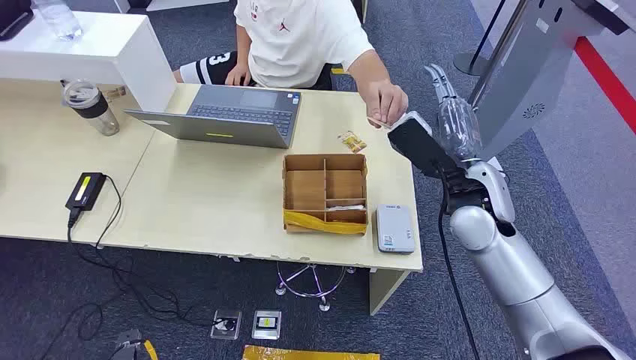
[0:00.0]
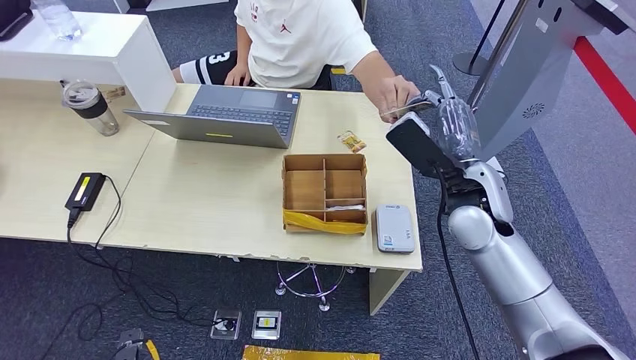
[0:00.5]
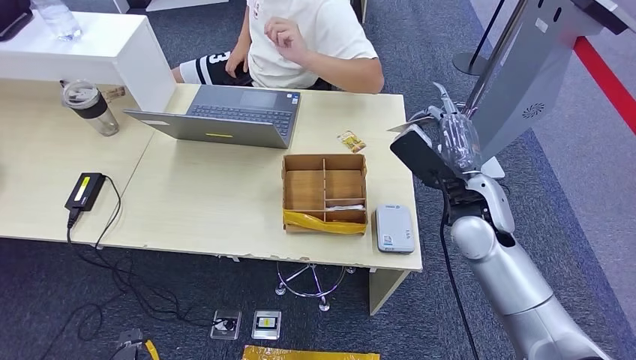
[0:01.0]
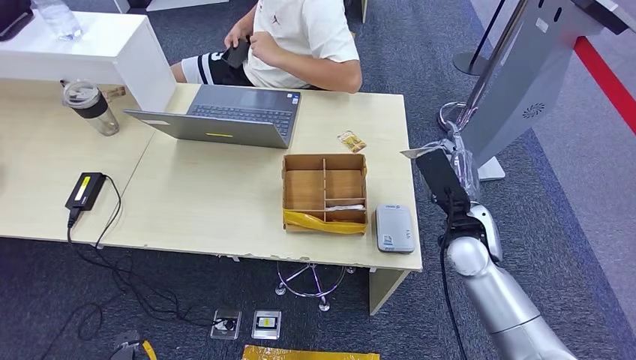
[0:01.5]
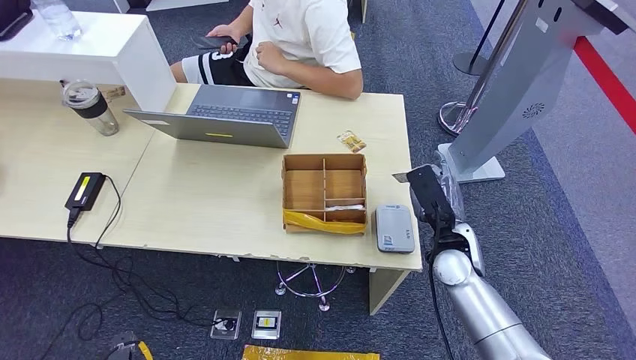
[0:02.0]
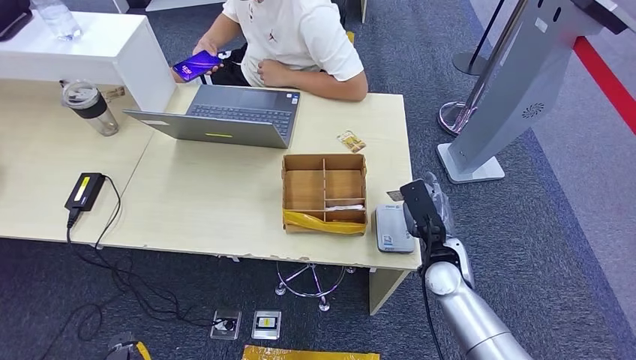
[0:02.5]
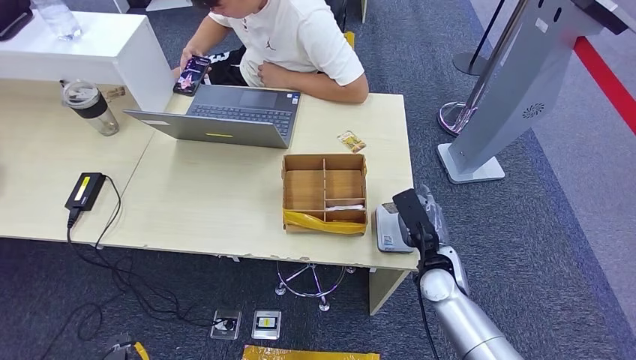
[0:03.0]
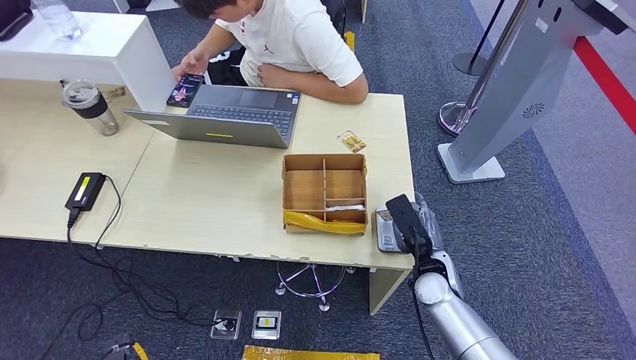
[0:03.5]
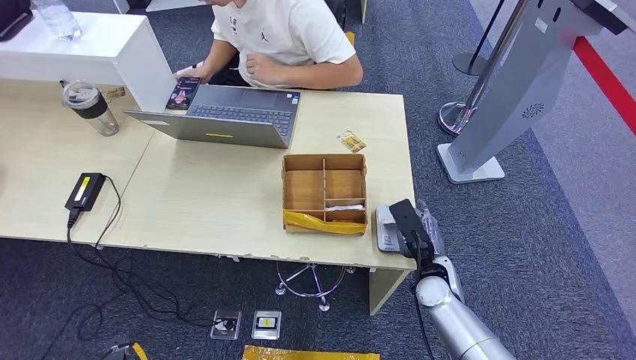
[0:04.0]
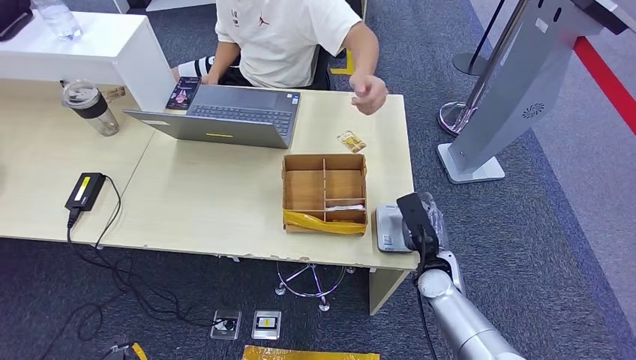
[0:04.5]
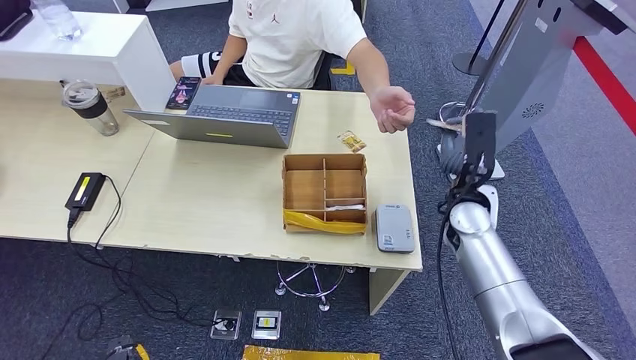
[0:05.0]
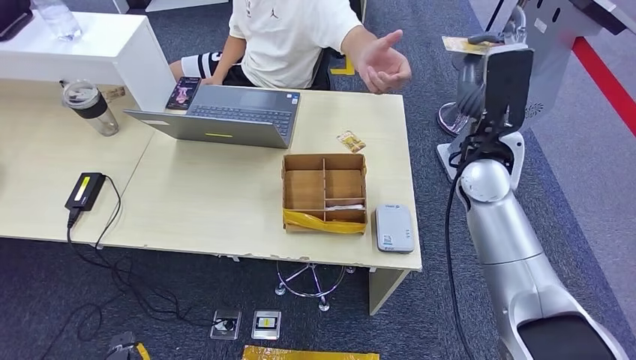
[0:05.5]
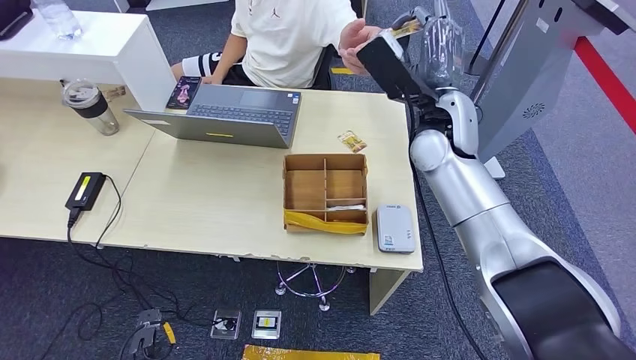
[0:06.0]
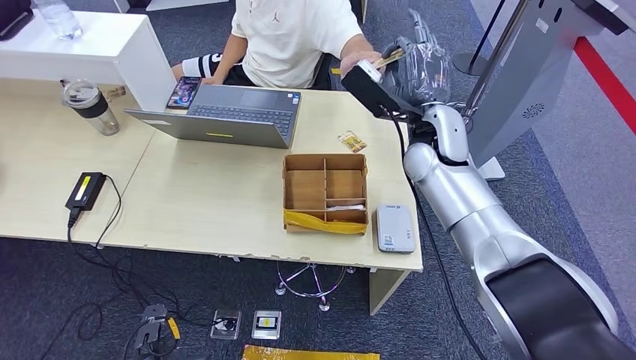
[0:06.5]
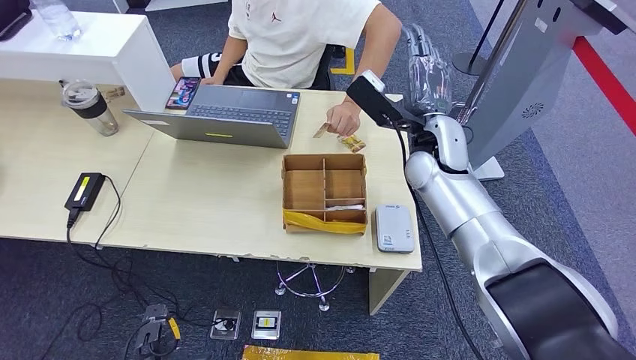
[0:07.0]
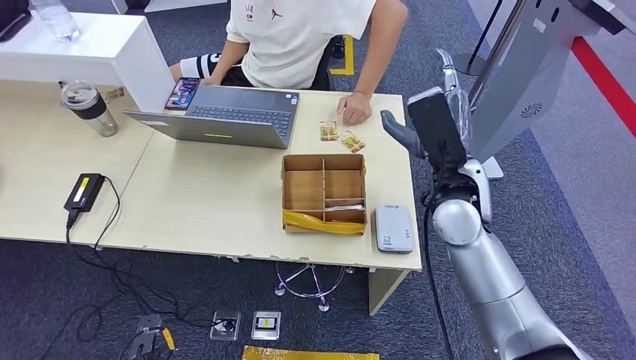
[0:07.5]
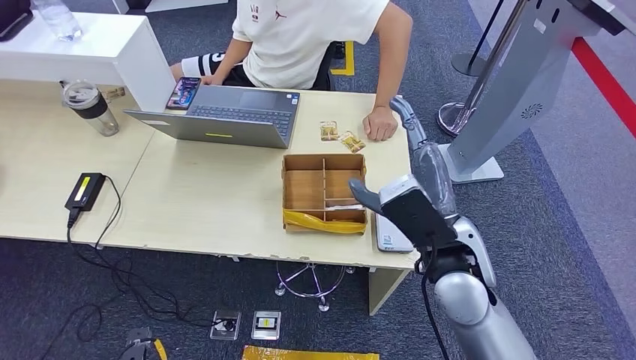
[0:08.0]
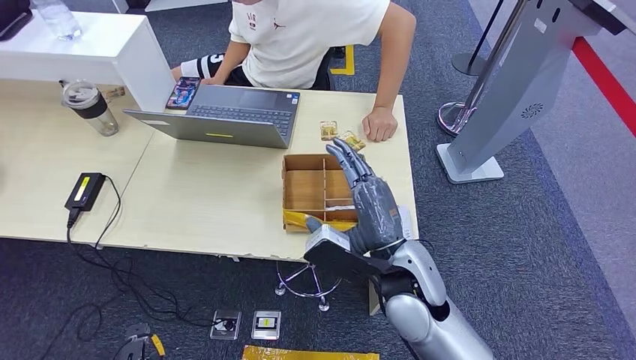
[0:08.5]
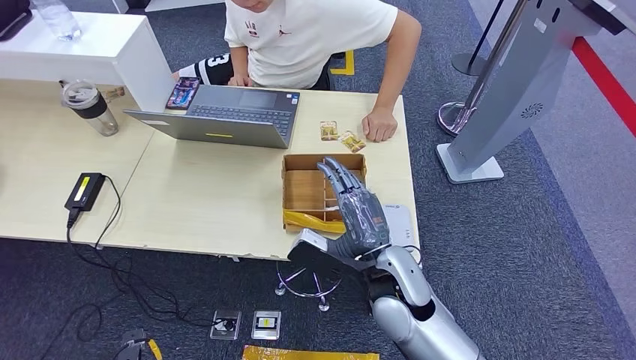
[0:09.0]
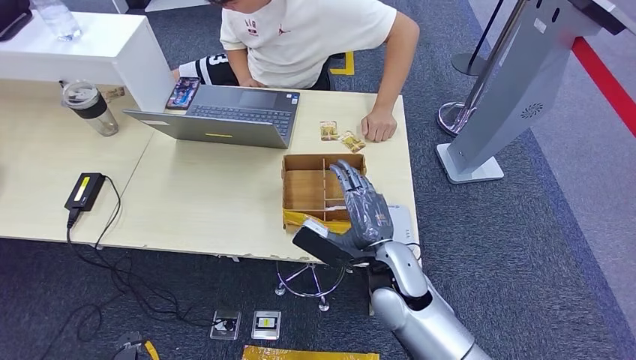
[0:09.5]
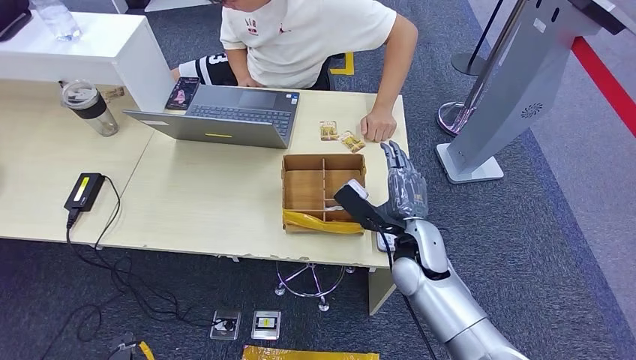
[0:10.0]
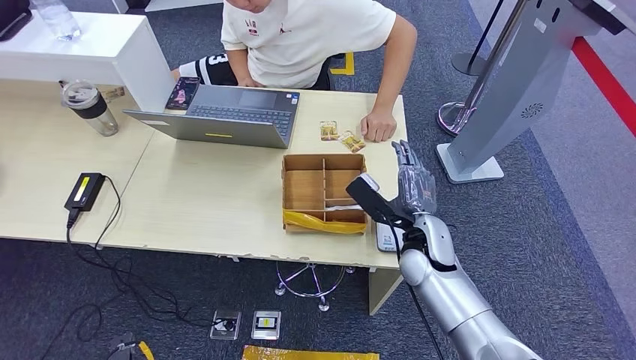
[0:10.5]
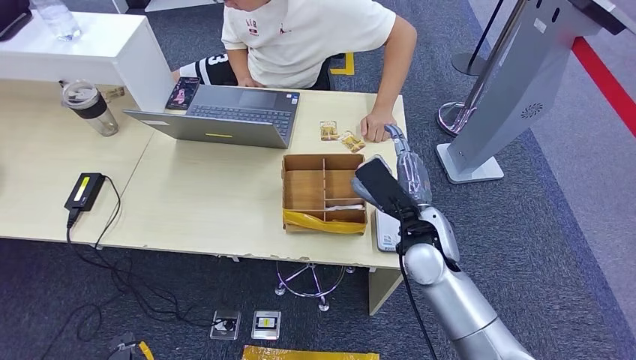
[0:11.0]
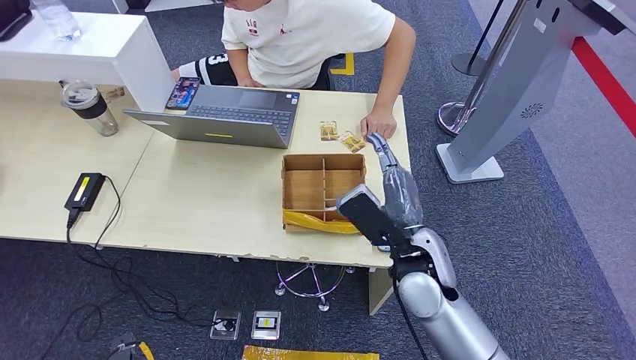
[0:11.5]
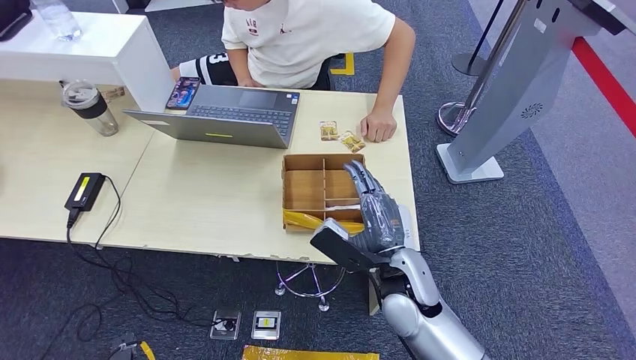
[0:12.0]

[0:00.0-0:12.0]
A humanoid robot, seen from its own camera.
Step, 0:00.0 to 0:01.5: Take the ID card from the person's hand.
Step, 0:02.0 to 0:05.0: Place the ID card on the card reader.
Step, 0:05.5 to 0:08.5: Hand the ID card to the person.
0:02.0 to 0:04.0: The right hand heads downward, covering roughly 10 cm.
0:08.0 to 0:10.0: The right hand travels downward by roughly 10 cm.
0:10.0 to 0:12.0: The right hand changes place by approximately 5 cm.

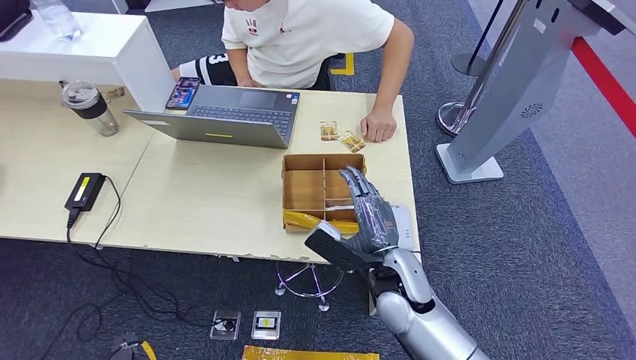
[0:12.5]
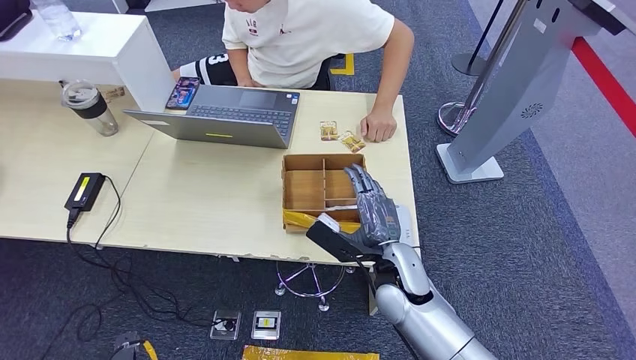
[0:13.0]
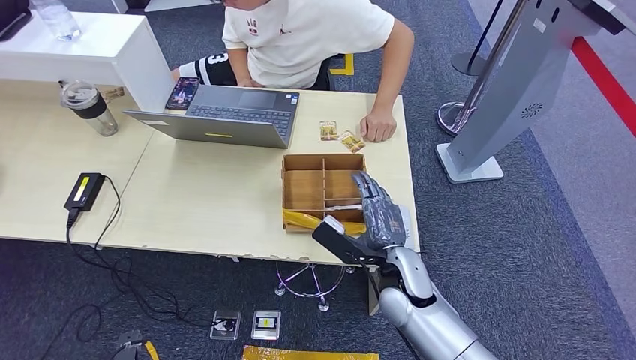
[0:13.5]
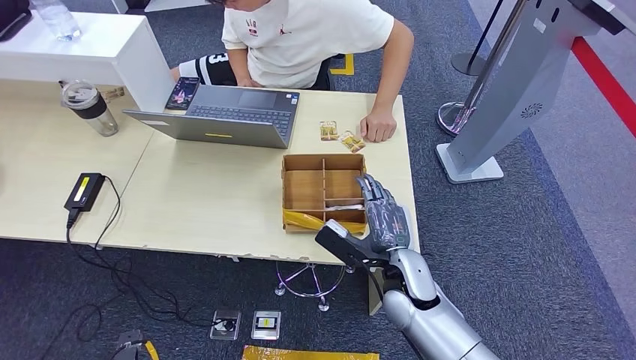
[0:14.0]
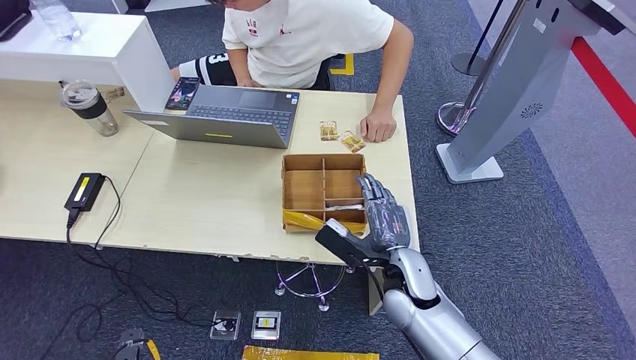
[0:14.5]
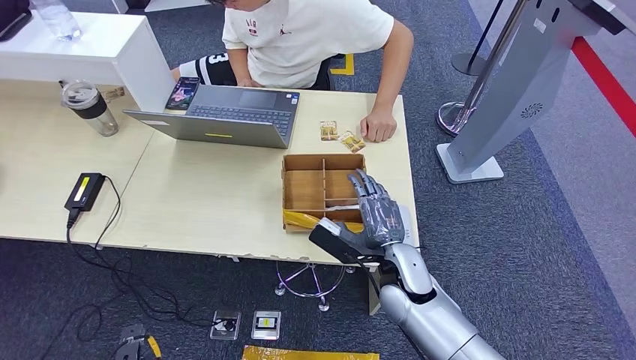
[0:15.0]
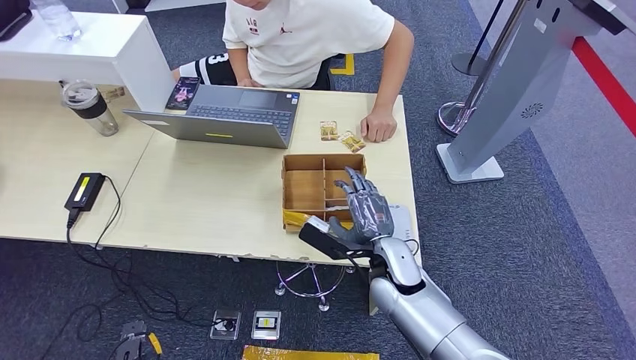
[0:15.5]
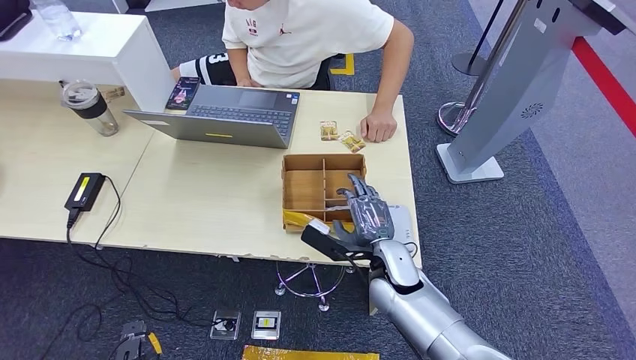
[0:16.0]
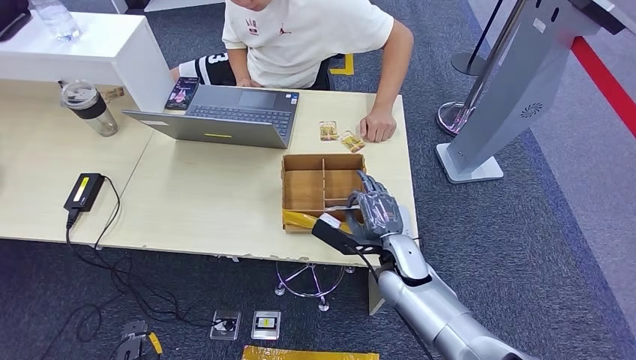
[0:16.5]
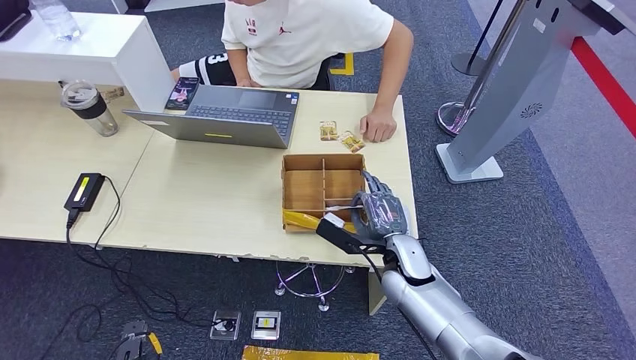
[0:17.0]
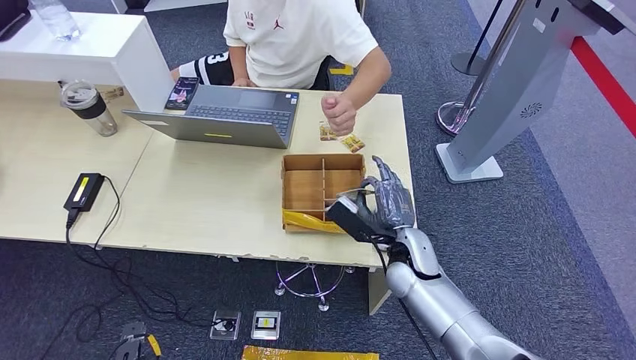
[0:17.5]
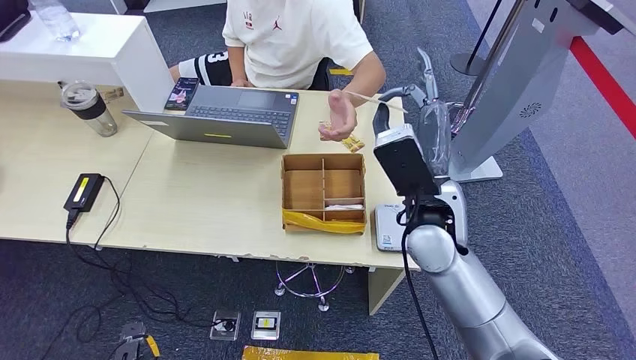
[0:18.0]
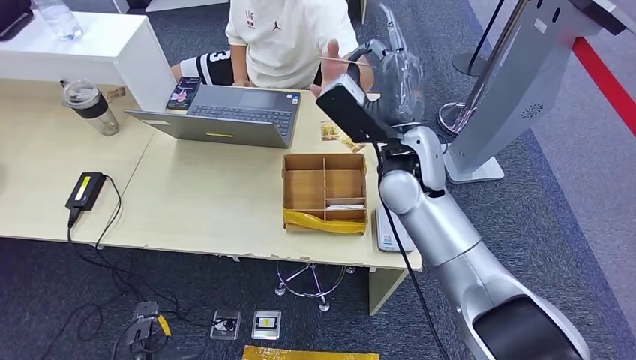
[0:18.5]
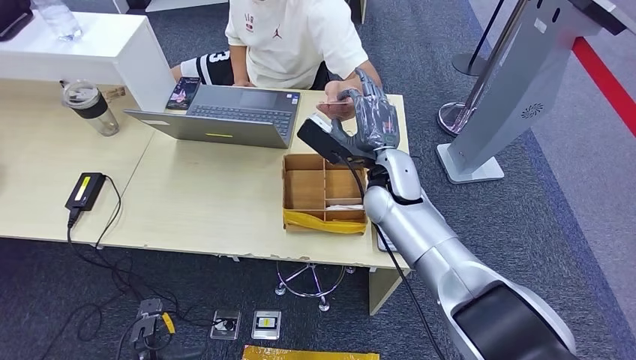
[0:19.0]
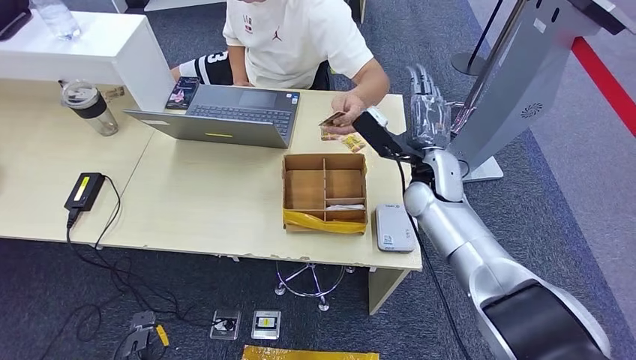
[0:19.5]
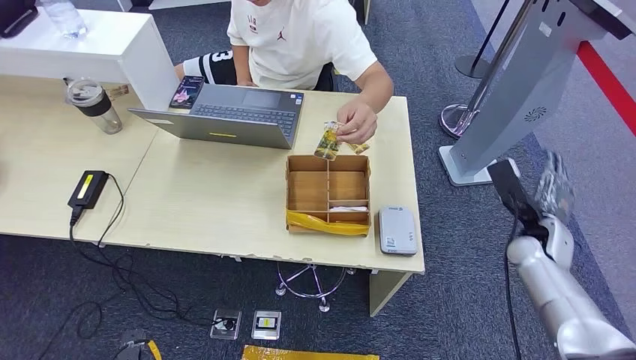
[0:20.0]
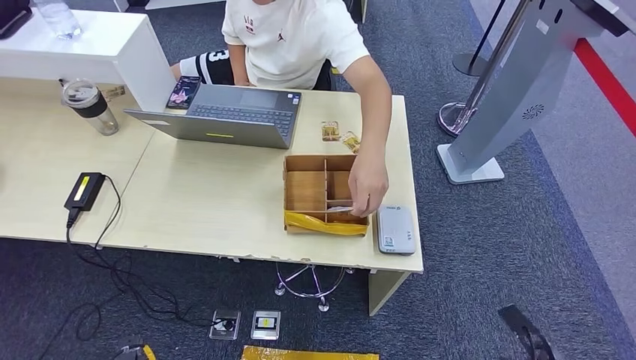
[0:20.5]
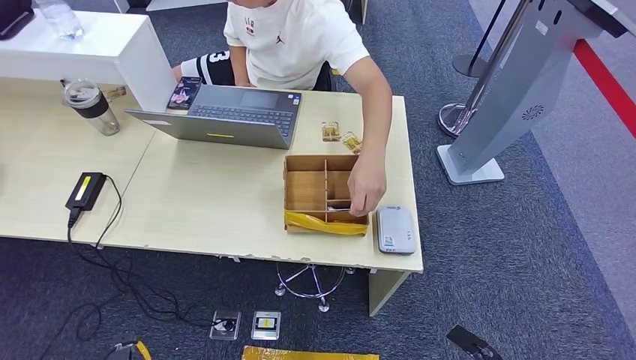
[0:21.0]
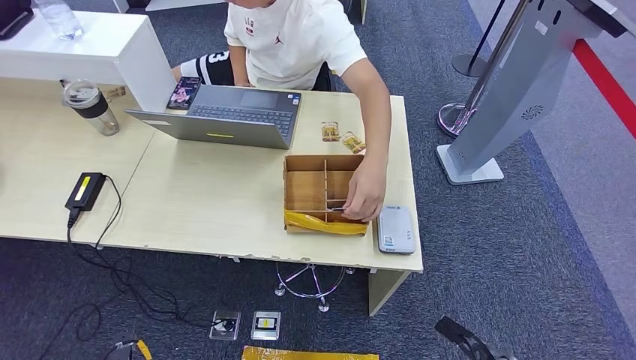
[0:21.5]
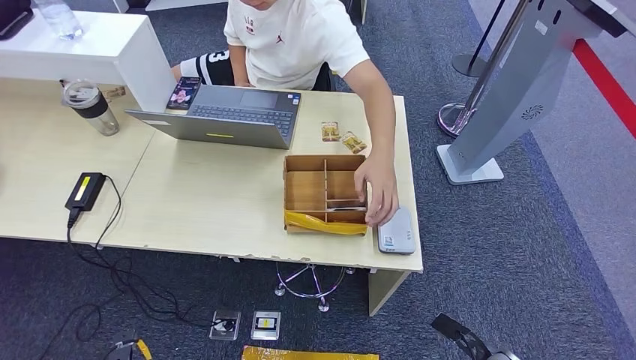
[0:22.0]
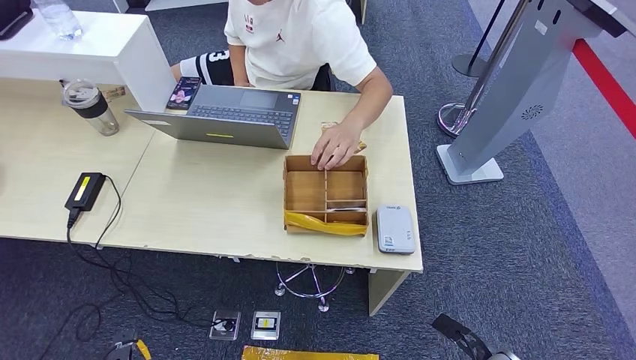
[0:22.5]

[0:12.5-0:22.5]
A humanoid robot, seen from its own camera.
Step, 0:12.5 to 0:18.5: Pick up the room key from the key card box.
Step, 0:19.0 to 0:22.5: Hand the room key to the person.
0:12.5 to 0:16.5: The hands stay close to where they were, moving slightly.
0:18.5 to 0:20.5: The left hand moves backward, approximately 5 cm, while the right hand moves downward, to the right and backward, roughly 50 cm.
0:20.5 to 0:22.5: The right hand moves to the left, roughly 10 cm.
